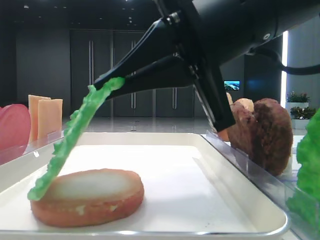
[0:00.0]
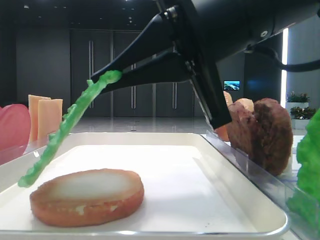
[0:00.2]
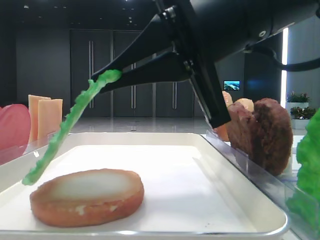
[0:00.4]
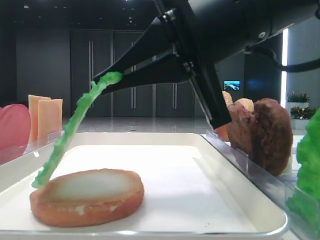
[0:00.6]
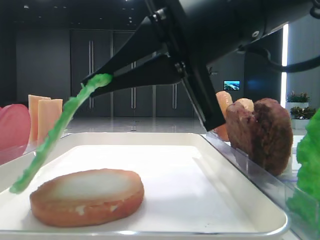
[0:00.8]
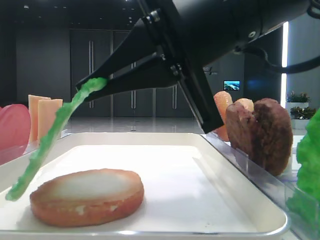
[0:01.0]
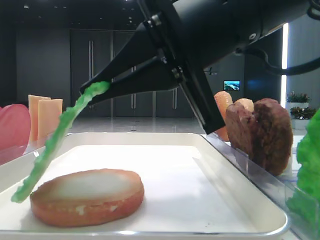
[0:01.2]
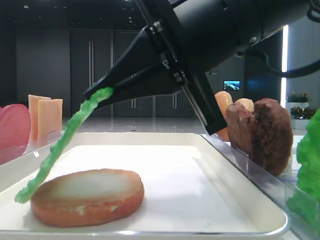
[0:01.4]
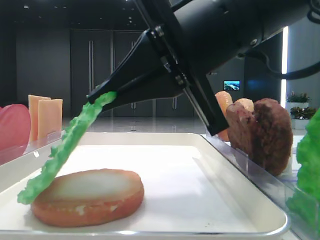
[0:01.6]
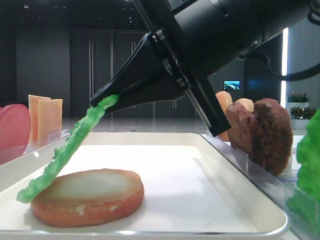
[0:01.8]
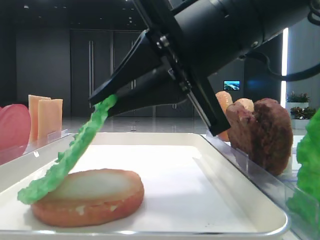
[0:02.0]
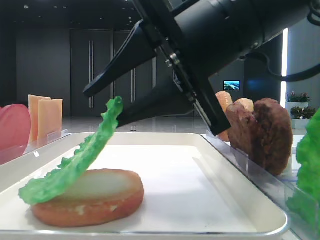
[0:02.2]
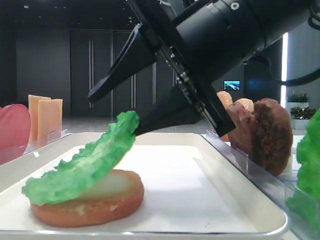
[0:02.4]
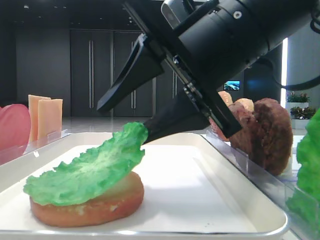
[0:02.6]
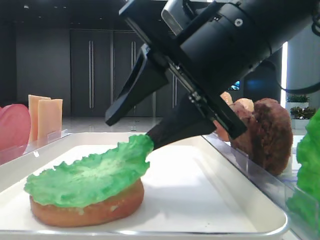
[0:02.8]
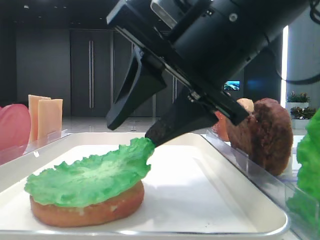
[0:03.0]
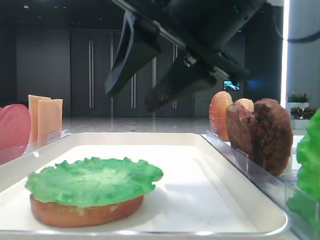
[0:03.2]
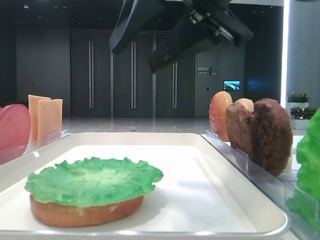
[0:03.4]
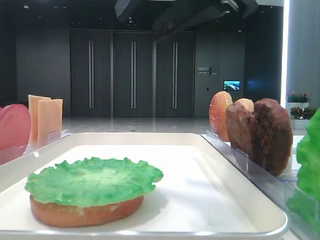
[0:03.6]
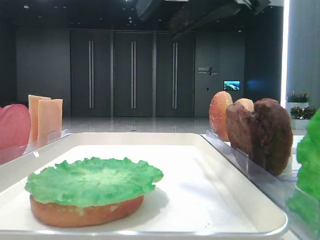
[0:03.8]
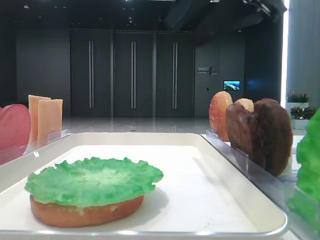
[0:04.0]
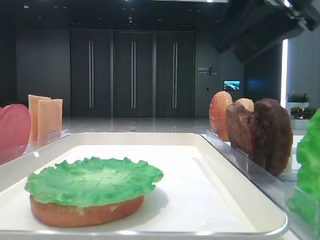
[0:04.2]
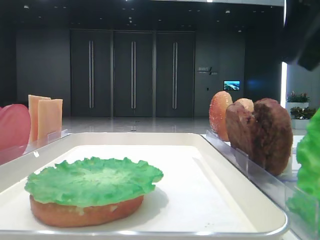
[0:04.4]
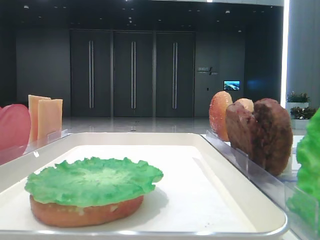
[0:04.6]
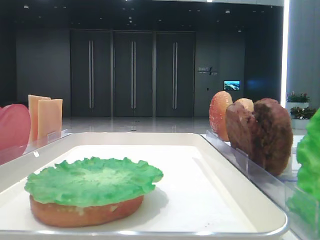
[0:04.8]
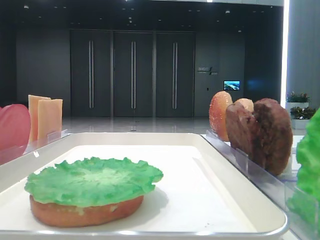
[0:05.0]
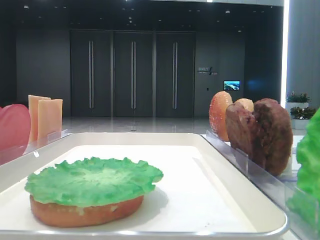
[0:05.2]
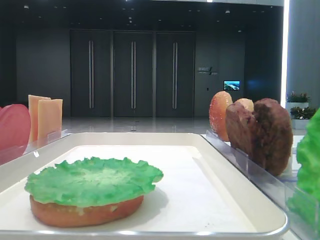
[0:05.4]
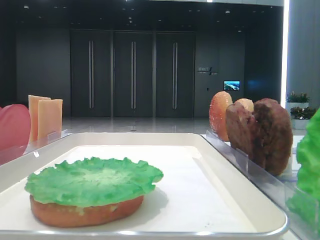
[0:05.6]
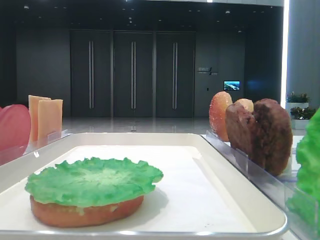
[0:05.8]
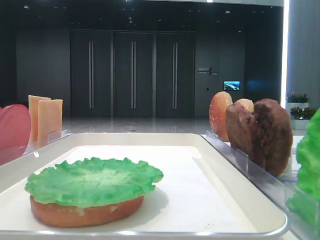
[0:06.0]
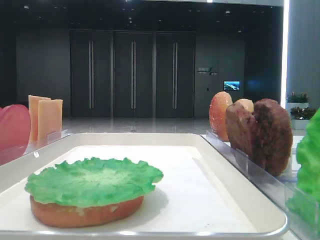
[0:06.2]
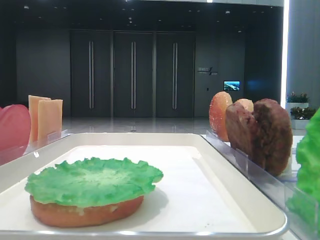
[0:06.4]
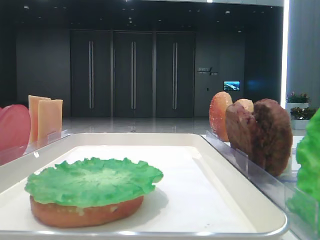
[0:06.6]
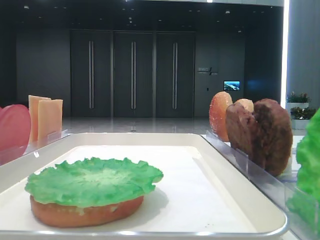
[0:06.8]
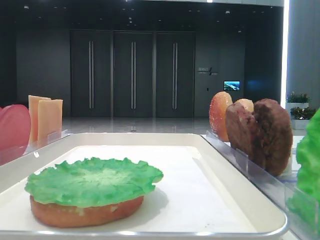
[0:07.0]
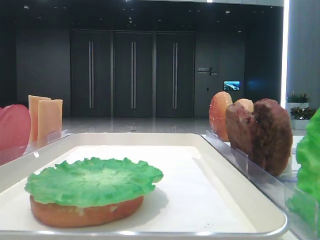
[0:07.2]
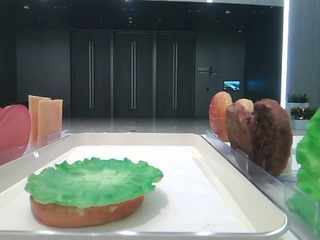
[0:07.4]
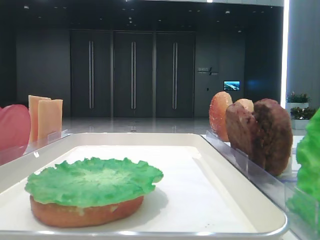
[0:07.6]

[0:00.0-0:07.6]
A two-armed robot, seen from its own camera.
Step, 0.0 to 3.0 s: Place the lettuce leaf on the bottom bread with the right hand.
1.6 to 3.0 s: The right gripper opens its fingers.
3.0 to 4.6 s: The right gripper goes approximately 20 cm to the right and upward.

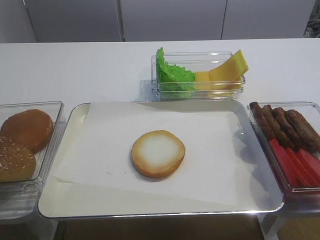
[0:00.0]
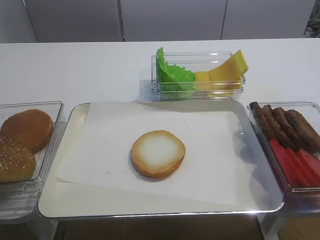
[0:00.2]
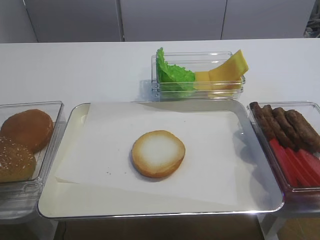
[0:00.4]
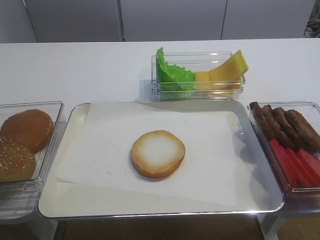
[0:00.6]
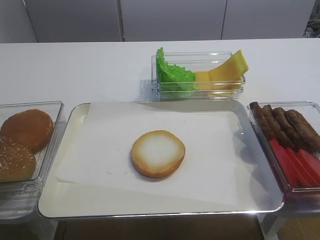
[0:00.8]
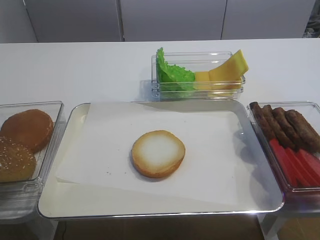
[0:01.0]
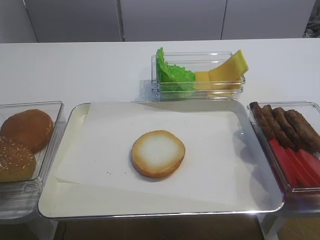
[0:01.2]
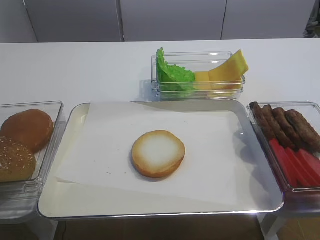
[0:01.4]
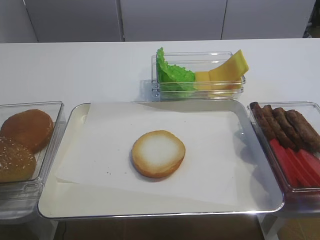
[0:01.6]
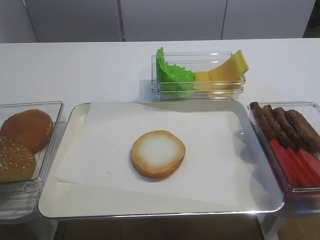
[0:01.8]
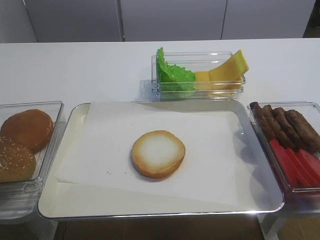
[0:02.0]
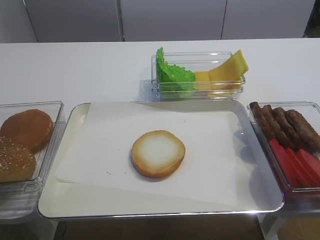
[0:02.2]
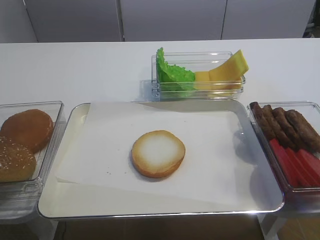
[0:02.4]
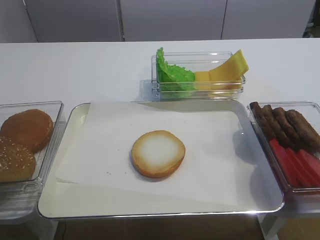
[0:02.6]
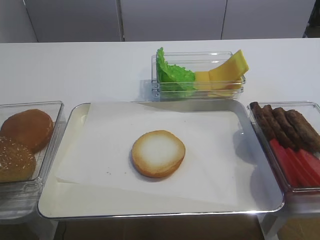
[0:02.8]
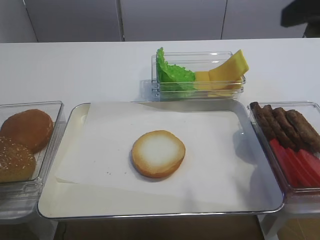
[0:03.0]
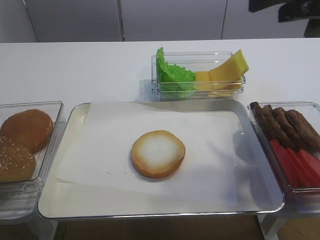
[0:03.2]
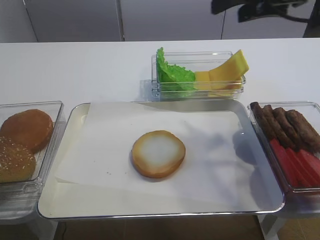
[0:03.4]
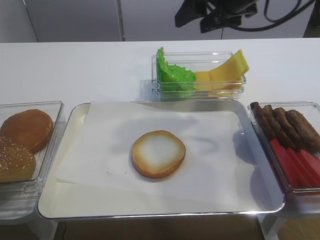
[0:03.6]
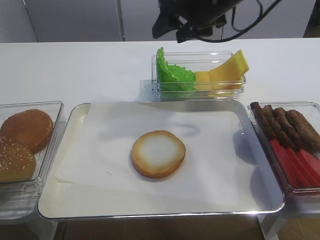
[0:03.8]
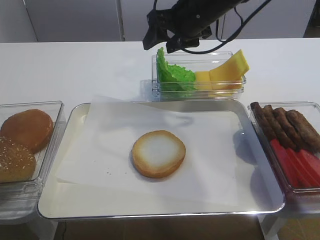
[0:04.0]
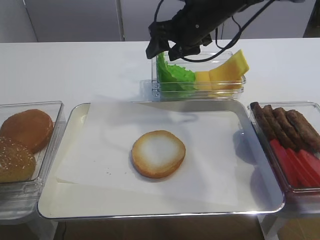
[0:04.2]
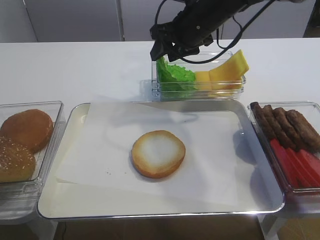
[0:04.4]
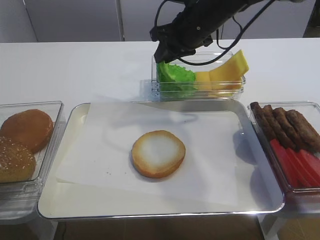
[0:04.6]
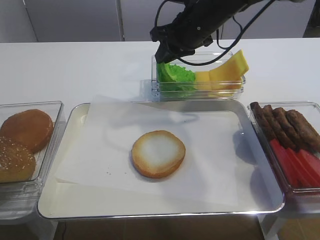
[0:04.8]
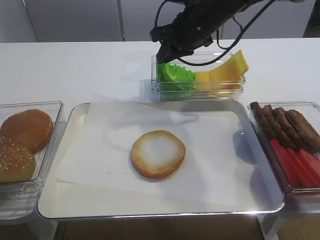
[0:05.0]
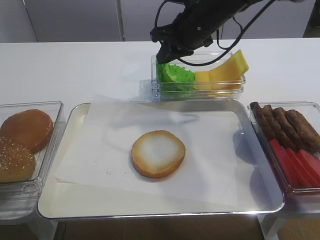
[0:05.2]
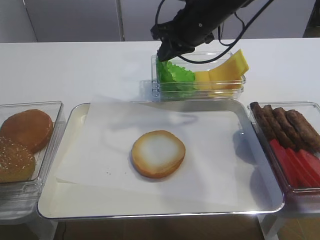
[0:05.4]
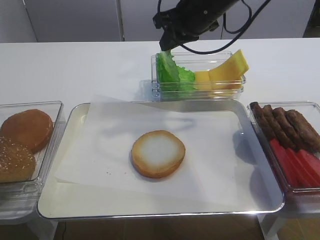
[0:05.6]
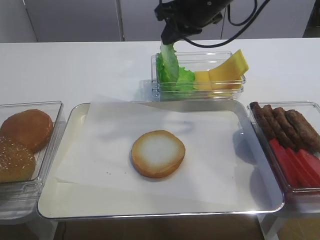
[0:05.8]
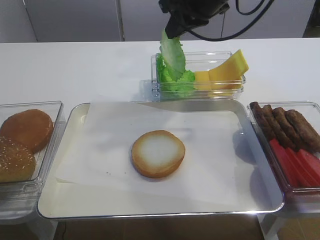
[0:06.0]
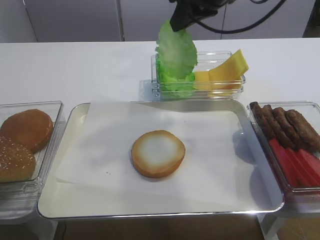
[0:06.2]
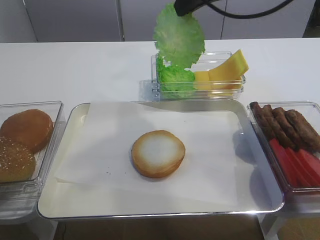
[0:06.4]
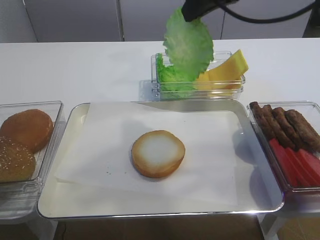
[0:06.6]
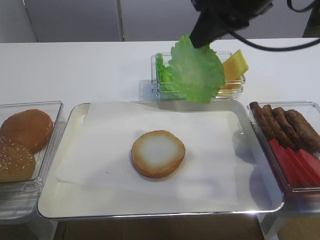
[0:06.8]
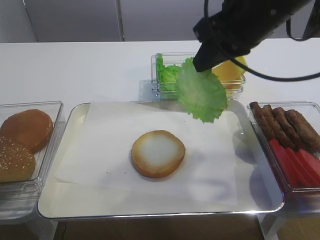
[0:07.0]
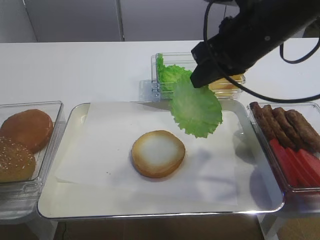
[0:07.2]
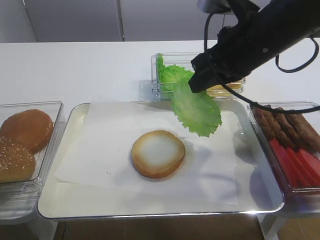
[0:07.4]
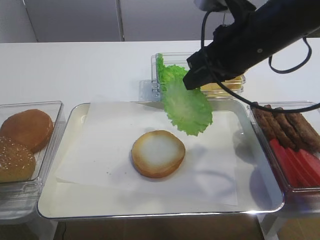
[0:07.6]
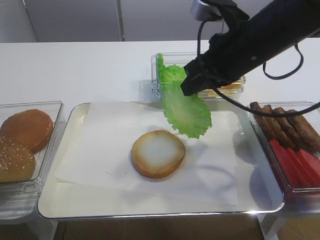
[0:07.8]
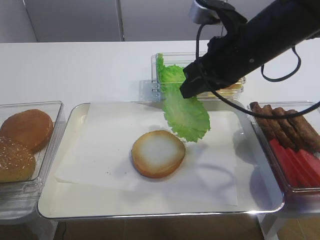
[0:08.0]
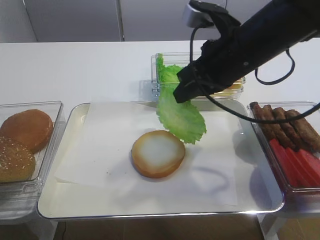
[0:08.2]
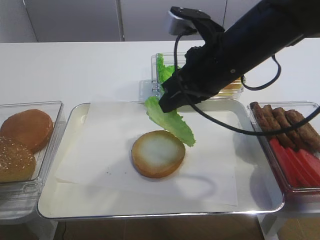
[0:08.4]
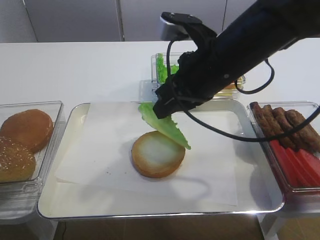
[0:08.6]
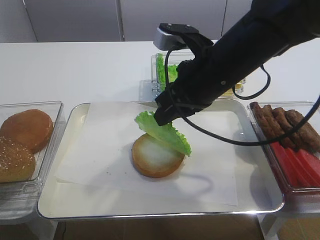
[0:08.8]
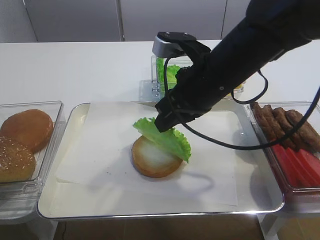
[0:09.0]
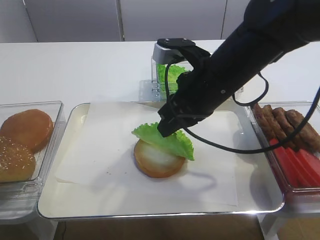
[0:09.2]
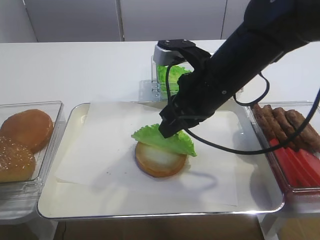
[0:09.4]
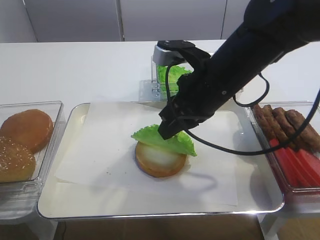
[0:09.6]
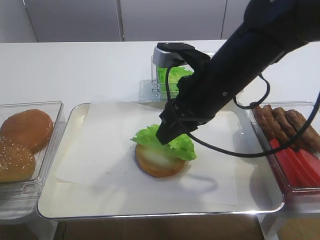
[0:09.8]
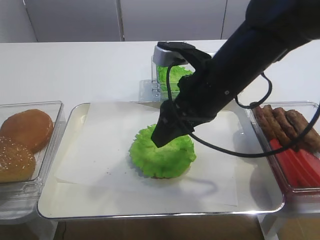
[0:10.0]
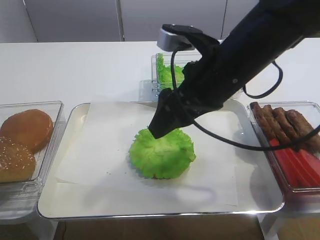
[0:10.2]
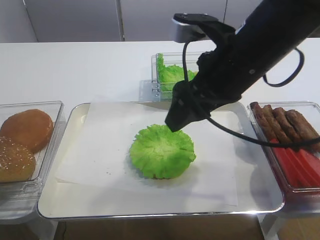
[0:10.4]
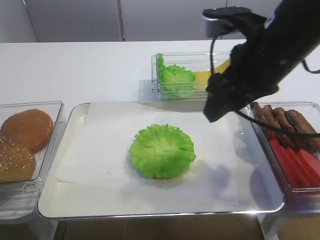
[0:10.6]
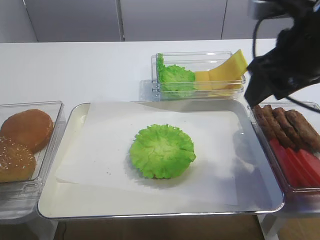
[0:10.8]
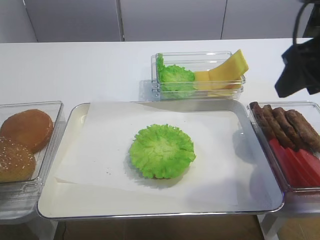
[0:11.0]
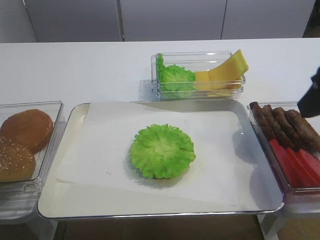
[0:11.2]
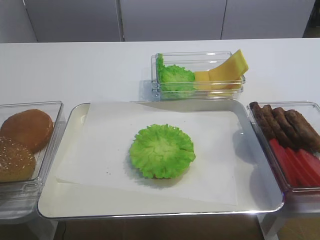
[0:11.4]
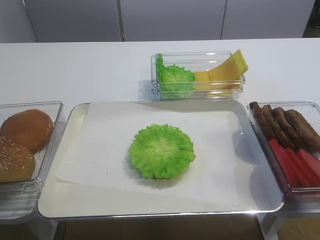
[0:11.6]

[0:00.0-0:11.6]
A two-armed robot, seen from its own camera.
Step, 0.0 to 6.0 s: Pick up the lettuce leaf with the right gripper.
Step, 6.2 to 10.0 s: Place the lettuce leaf on the bread slice with the right gripper.
1.4 to 2.8 s: The right gripper travels forward and upward by about 20 cm, and opens its fingers.
2.8 to 4.4 s: The right gripper goes some 35 cm forward and to the left.
4.4 to 5.8 s: The right gripper moves some 5 cm, and closes its fingers.
5.8 to 7.2 s: The right gripper goes approximately 10 cm backward.
7.2 to 8.8 s: The right gripper heads to the left, covering about 5 cm.
8.8 to 10.2 s: The right gripper opens its fingers.
10.2 to 11.6 s: The right gripper moves backward and to the right, approximately 25 cm.

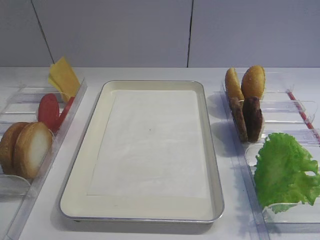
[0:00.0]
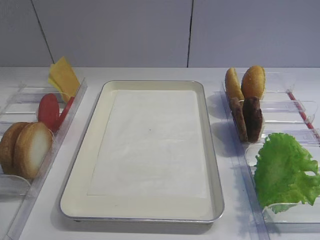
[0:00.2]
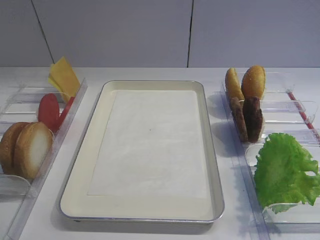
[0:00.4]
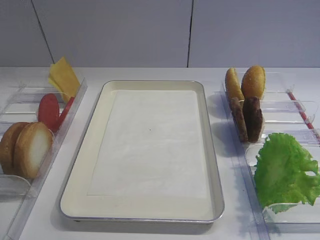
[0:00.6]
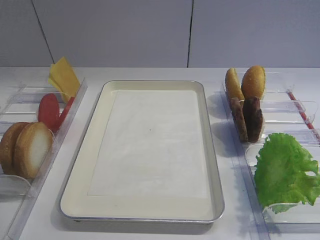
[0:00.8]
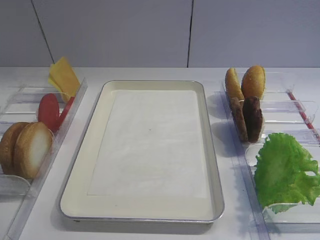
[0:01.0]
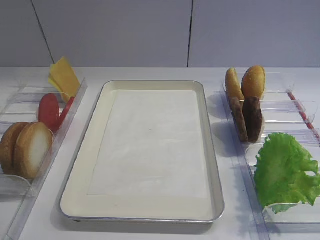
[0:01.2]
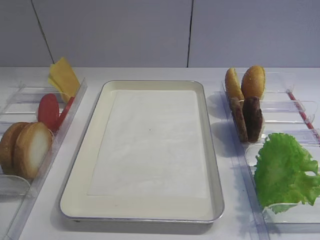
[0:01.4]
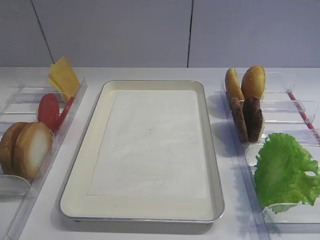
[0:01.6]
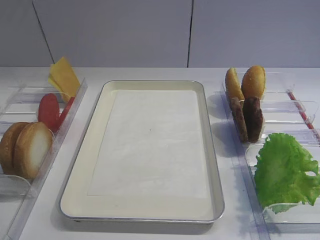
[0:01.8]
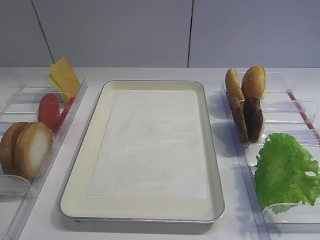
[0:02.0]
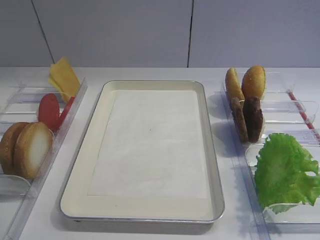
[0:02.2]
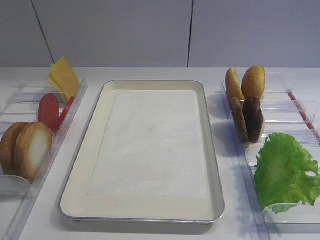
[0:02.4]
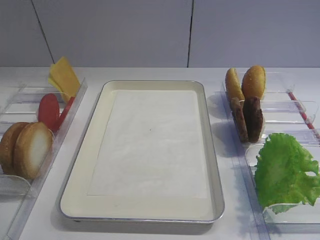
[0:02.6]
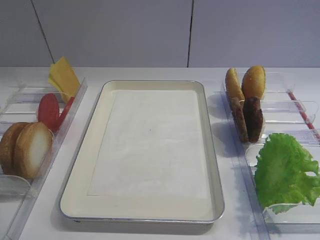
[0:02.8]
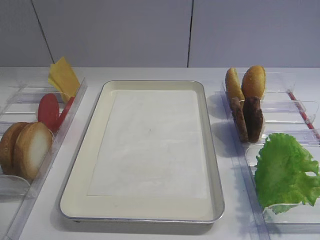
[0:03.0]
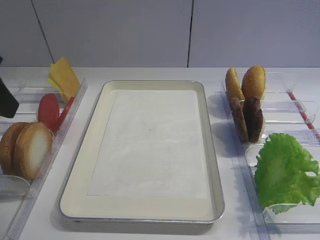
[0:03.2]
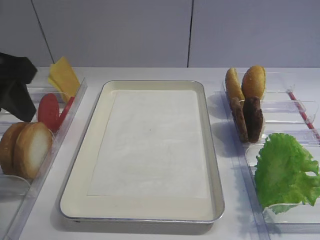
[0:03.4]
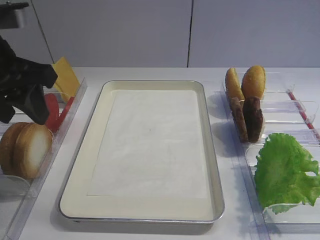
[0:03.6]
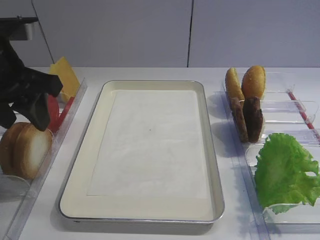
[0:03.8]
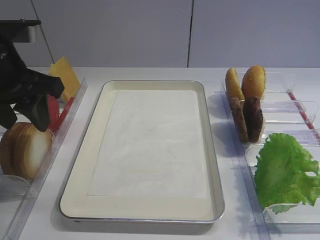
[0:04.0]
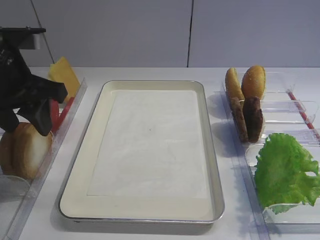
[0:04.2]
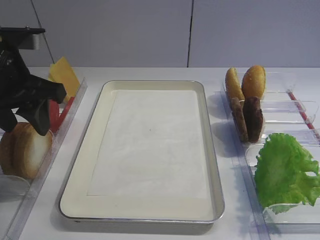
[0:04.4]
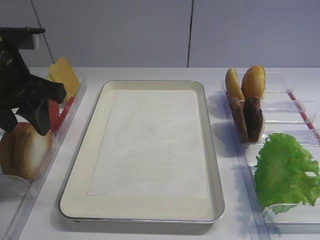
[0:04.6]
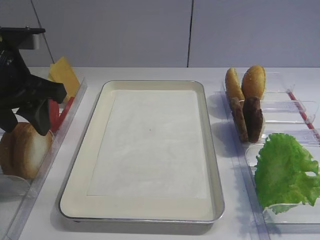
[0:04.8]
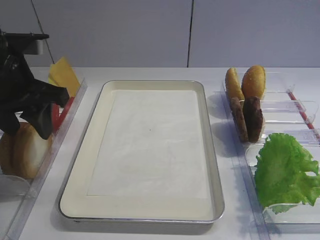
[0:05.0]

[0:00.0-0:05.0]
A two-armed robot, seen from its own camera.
1.6 to 3.4 s: The left gripper heads forward, covering roughly 25 cm, and opens.
3.4 to 5.0 s: The left gripper moves forward and downward, roughly 5 cm.
